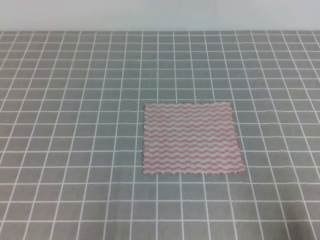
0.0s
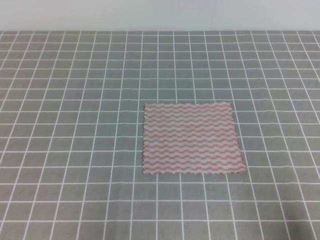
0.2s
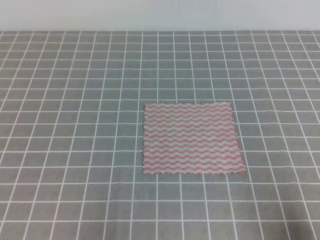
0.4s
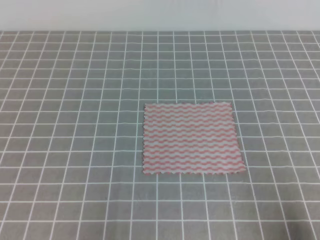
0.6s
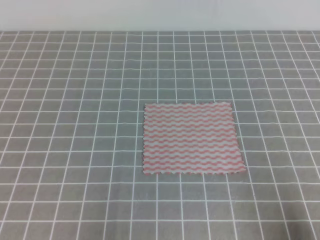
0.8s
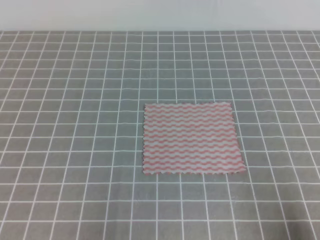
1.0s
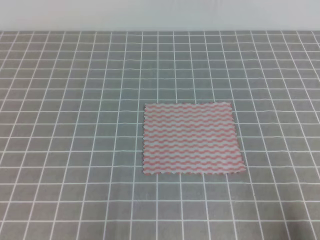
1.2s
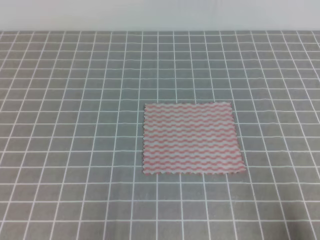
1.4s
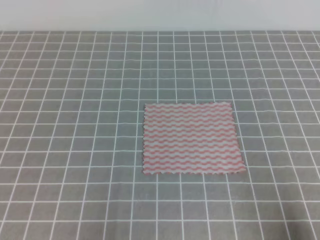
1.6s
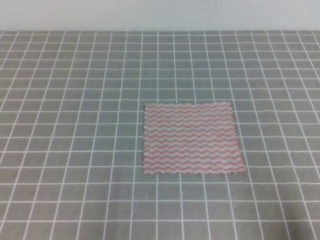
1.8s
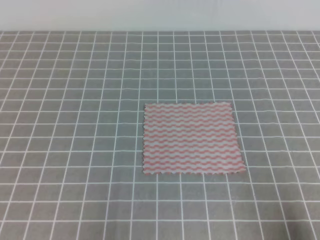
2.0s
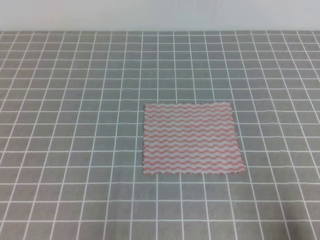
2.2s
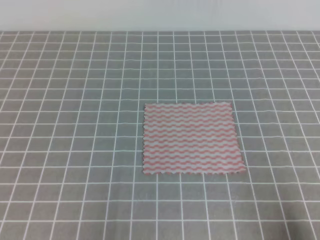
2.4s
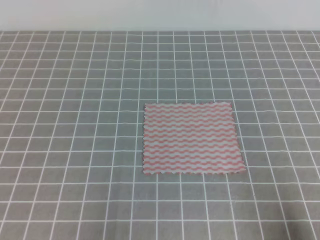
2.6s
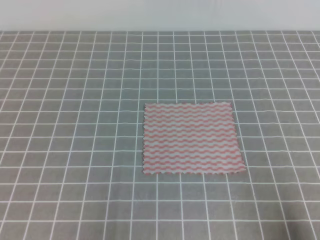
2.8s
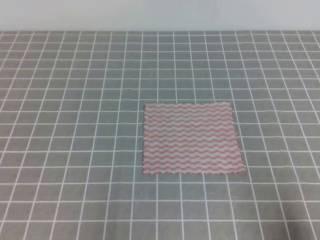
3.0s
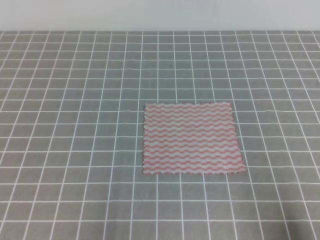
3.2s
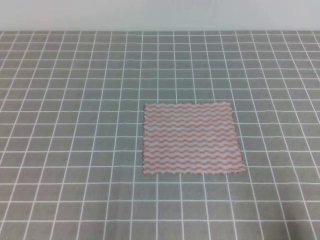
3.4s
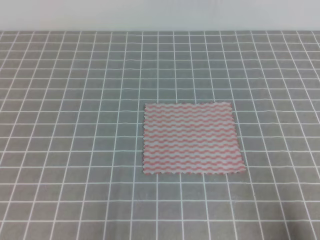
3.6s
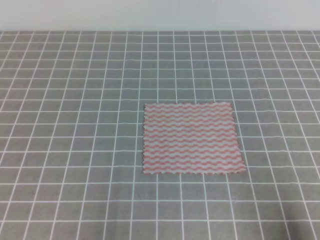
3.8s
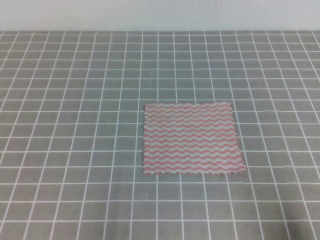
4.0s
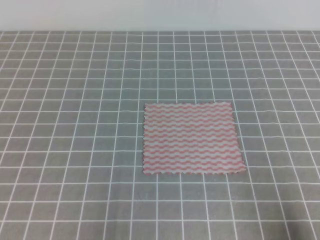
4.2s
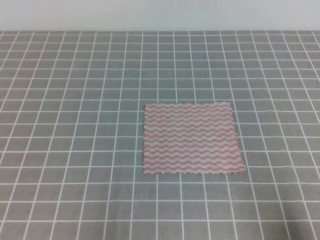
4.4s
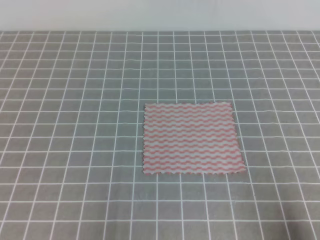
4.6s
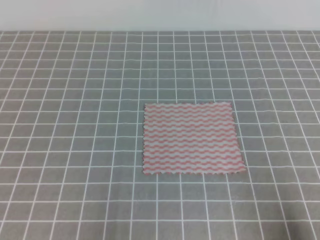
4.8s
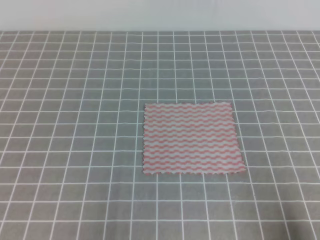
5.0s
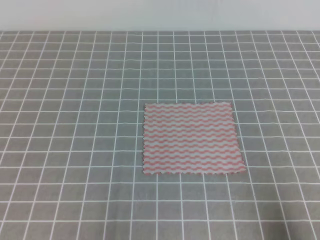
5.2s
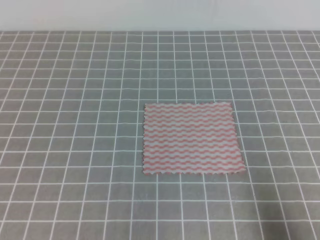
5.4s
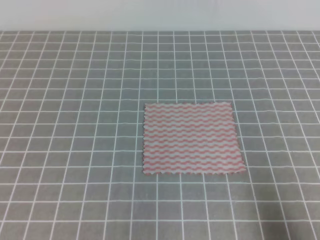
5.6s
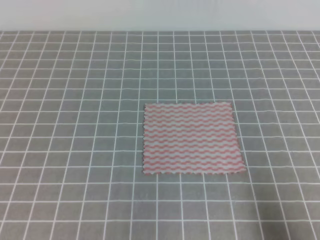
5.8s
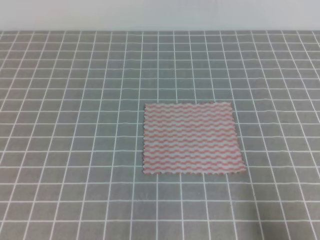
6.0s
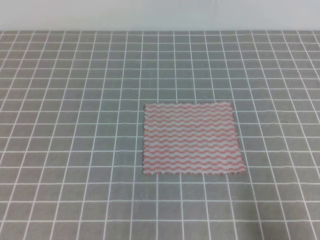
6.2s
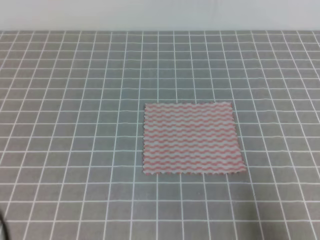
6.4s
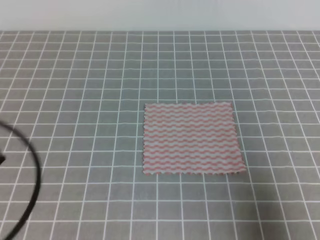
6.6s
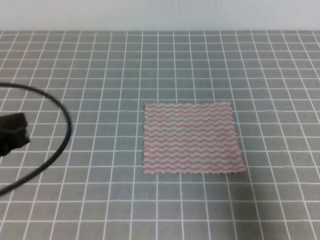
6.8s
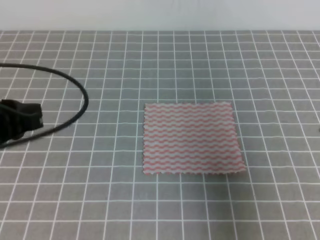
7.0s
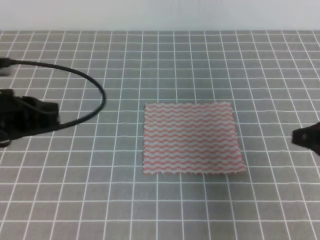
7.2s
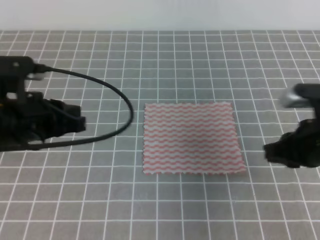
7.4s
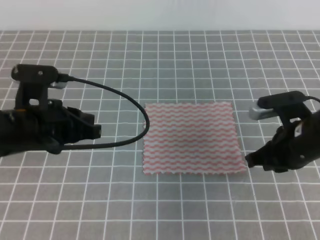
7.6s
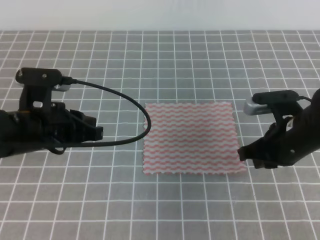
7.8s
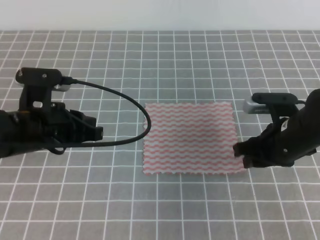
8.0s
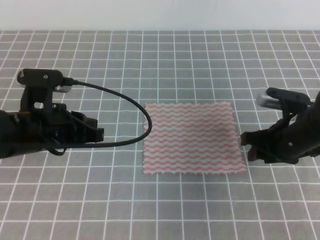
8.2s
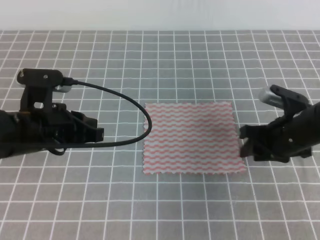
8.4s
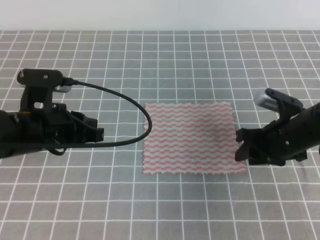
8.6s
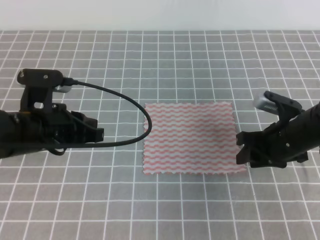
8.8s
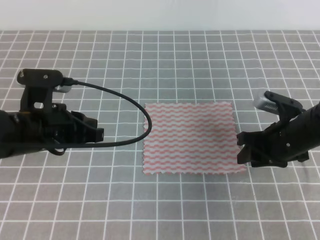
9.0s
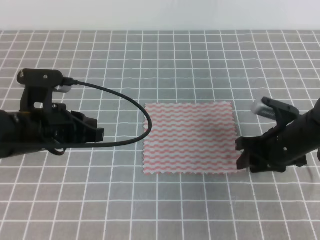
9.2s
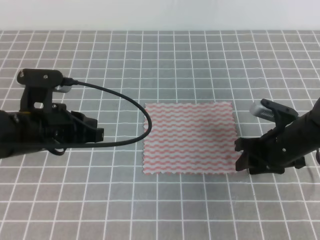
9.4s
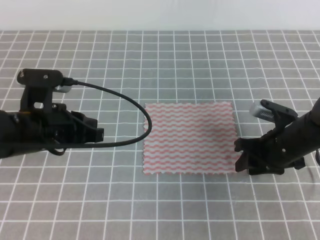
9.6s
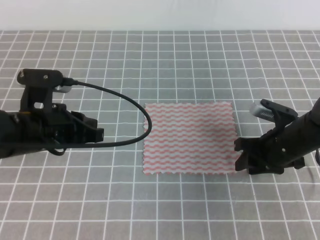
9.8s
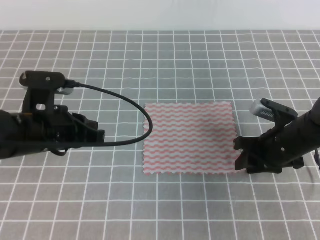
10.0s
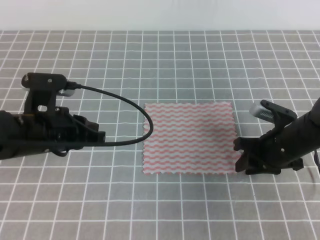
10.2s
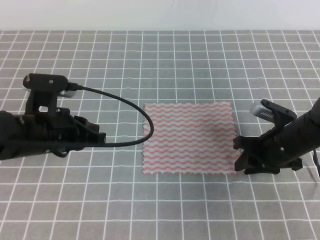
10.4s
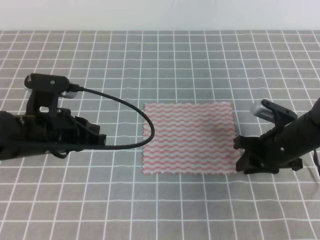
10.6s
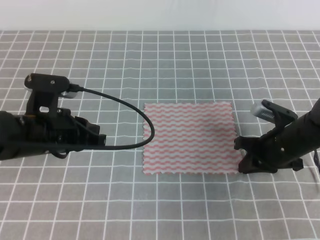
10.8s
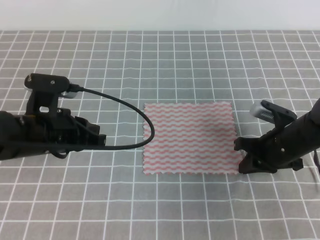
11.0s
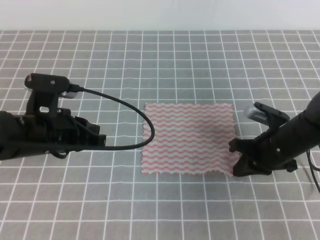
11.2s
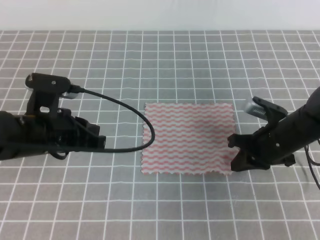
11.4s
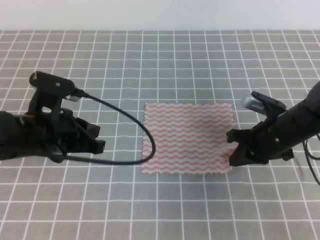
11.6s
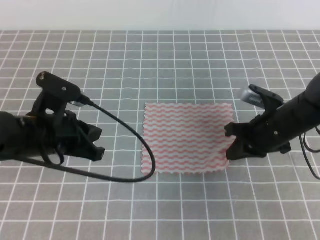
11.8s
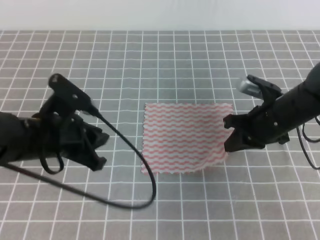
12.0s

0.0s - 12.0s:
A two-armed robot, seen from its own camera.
0.0s - 1.6s: Both grippers stay put.
1.6s - 4.4s: Both grippers stay put.
6.0s - 7.6s: The left gripper moves forward and to the right, approximately 20 cm, while the right gripper shifts approximately 25 cm forward and to the left.
7.6s - 9.0s: The right gripper goes about 5 cm downward, and opens its fingers.
9.0s - 10.4s: The grippers move only a little.
10.4s - 12.0s: The right gripper closes its fingers. Meanwhile the left gripper opens.

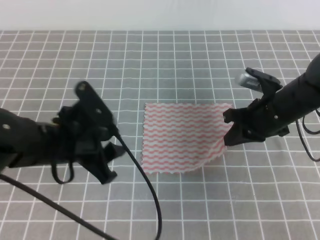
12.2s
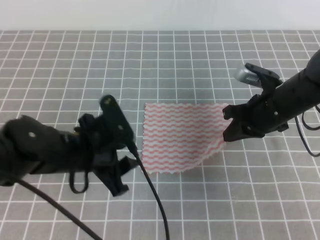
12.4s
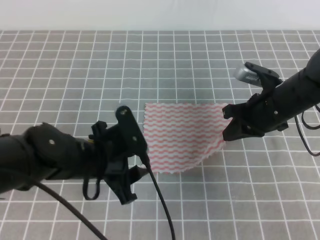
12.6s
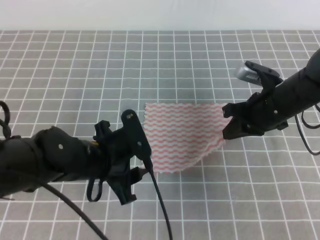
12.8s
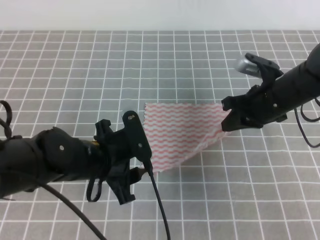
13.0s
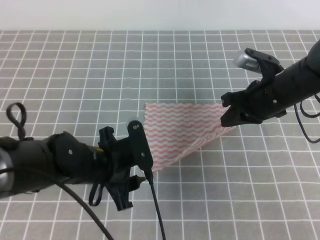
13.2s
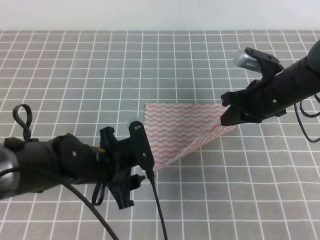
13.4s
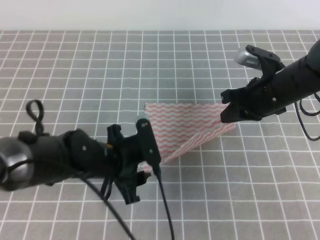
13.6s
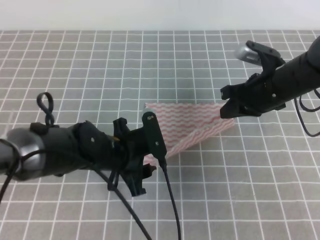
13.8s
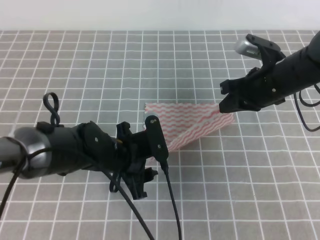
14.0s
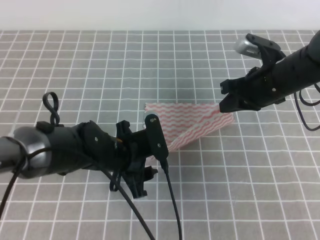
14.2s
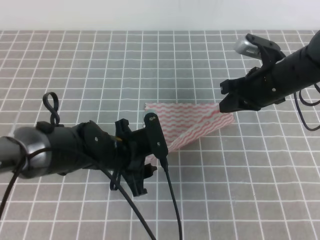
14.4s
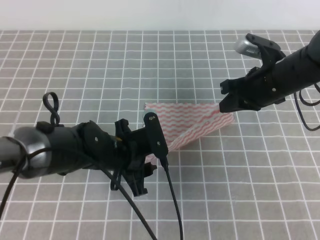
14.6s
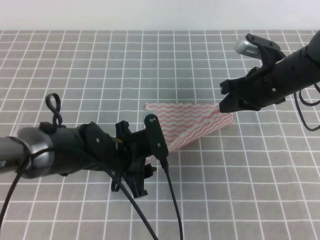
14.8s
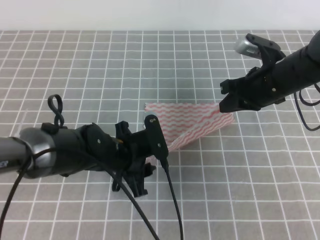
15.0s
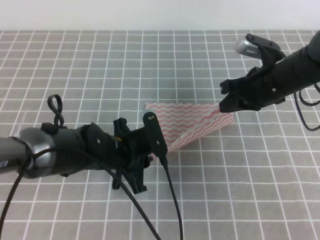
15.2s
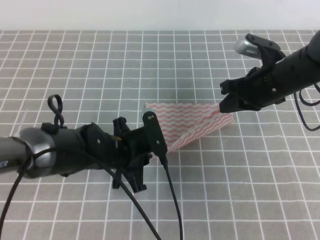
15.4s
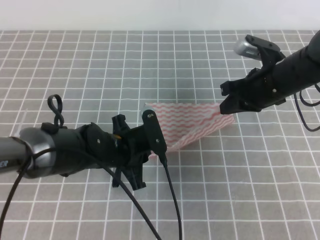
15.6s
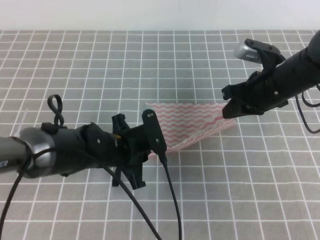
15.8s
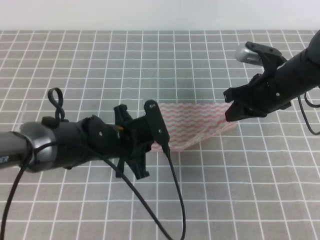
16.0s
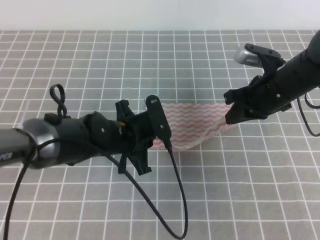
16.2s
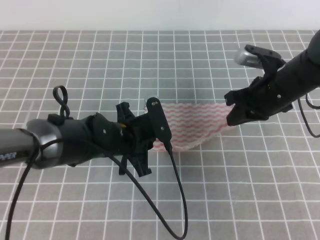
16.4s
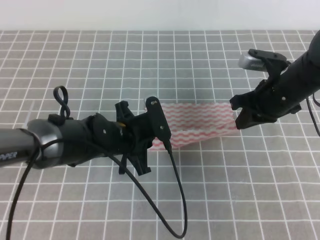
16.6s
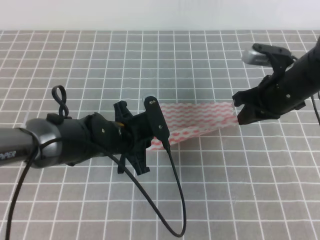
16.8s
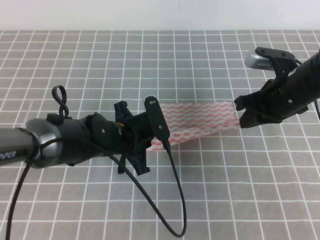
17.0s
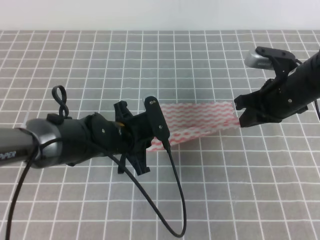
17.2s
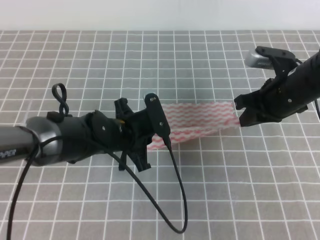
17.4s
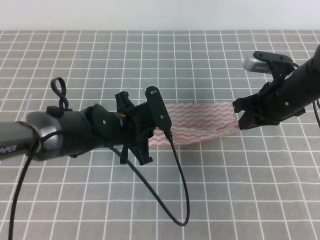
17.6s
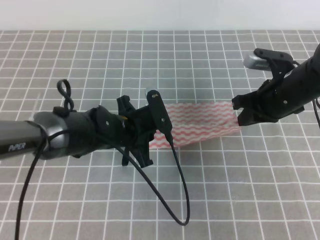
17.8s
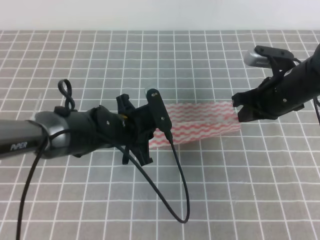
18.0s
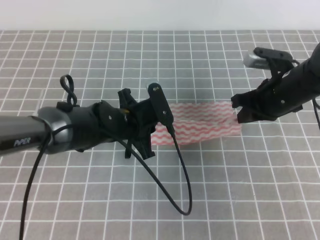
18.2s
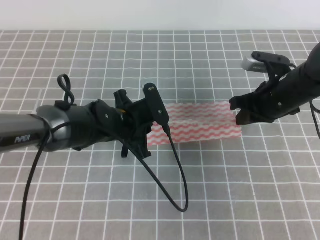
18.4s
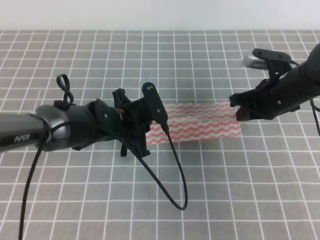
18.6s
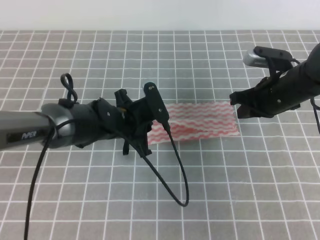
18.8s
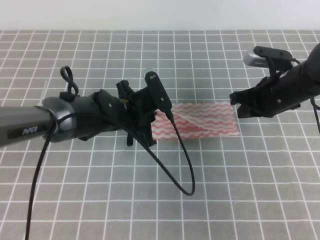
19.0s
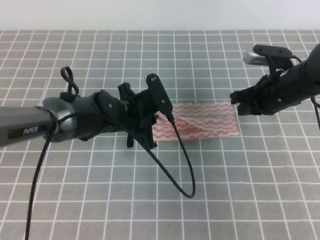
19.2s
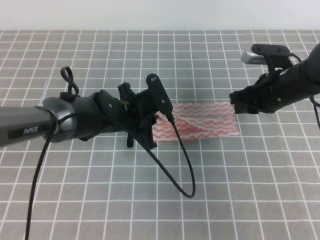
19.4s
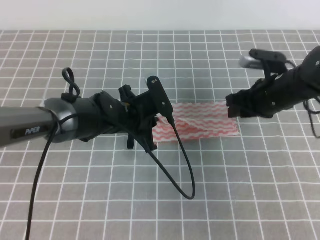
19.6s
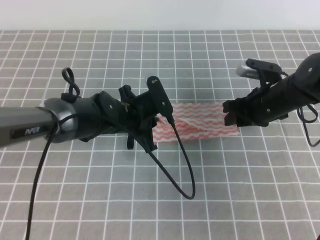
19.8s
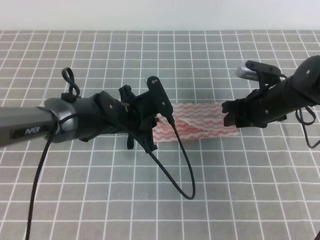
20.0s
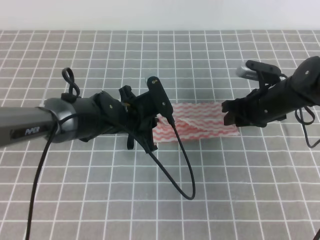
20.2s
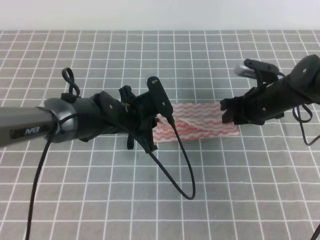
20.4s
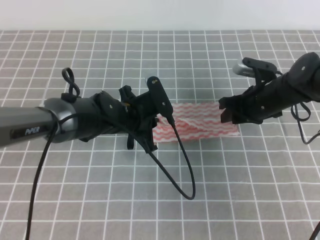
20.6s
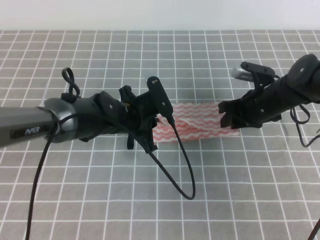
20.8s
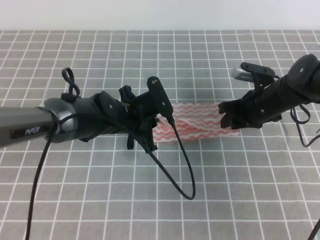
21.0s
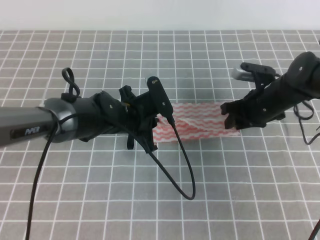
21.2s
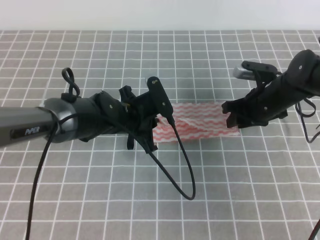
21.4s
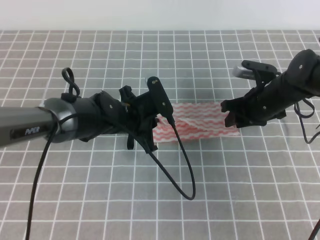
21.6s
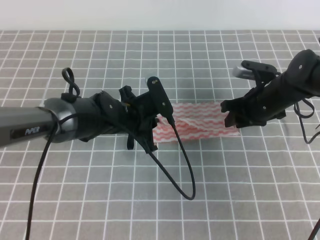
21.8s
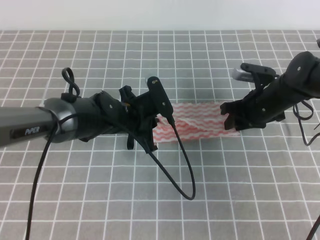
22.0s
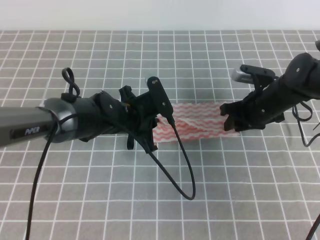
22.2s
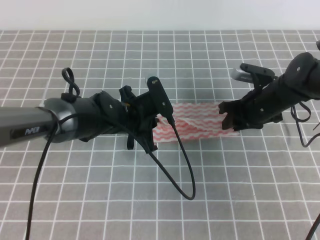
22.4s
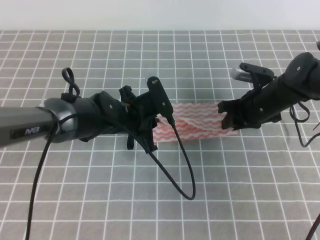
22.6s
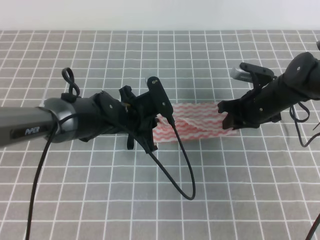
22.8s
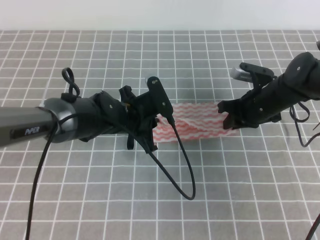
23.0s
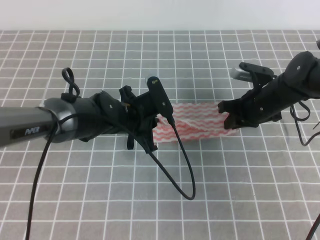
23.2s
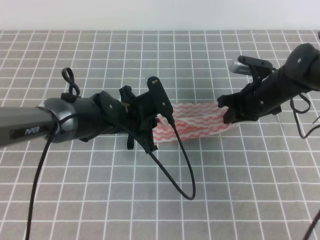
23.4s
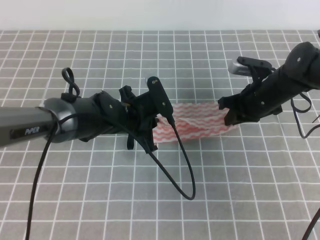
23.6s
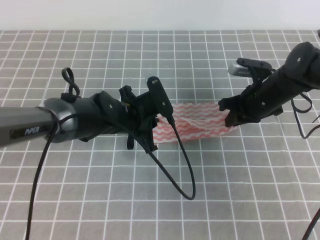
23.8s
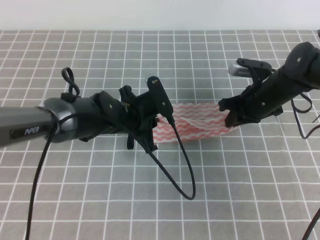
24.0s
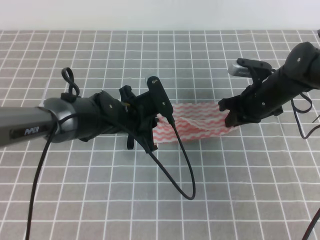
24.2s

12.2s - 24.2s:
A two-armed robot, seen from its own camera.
12.2s - 13.8s: The left gripper heads to the right and downward, covering approximately 10 cm.
13.8s - 15.2s: The left gripper closes up.
15.2s - 18.2s: The grippers stay close to where they were, moving slightly.
18.2s - 19.8s: The right gripper opens its fingers.
19.8s - 21.2s: The grippers stay close to where they were, moving slightly.
21.2s - 22.6s: The two grippers keep their place.
22.6s - 24.2s: The right gripper closes up.
